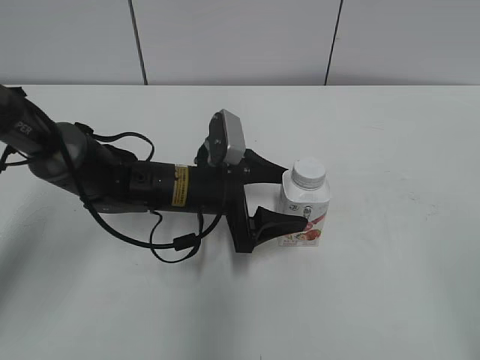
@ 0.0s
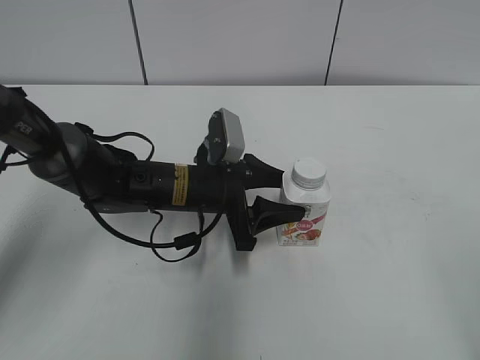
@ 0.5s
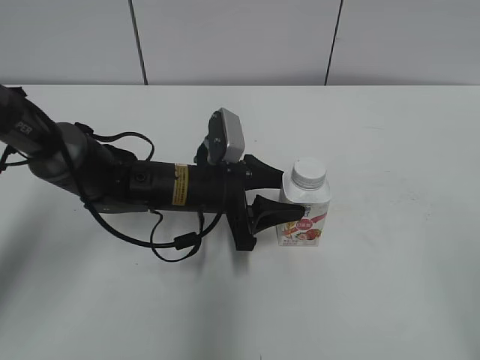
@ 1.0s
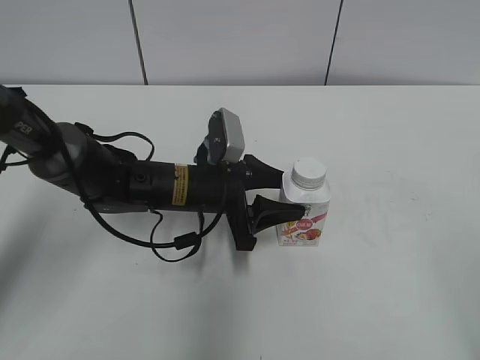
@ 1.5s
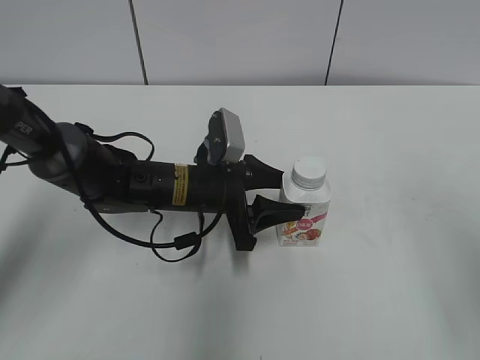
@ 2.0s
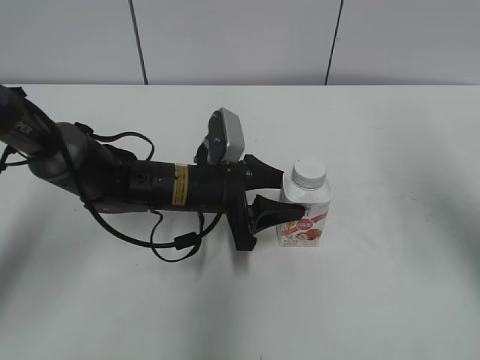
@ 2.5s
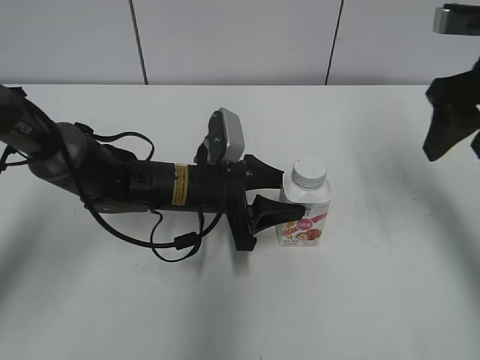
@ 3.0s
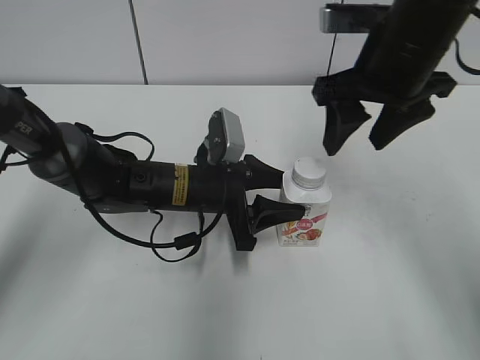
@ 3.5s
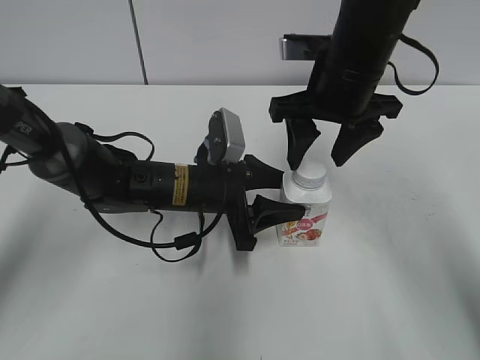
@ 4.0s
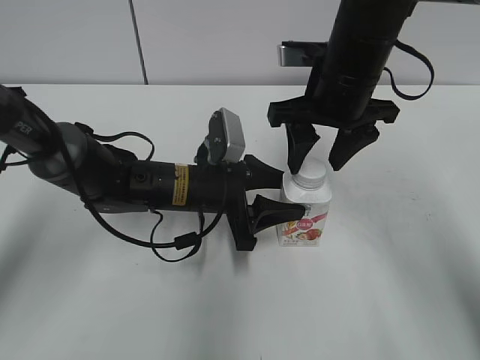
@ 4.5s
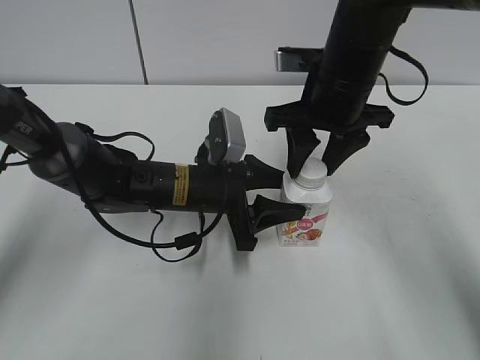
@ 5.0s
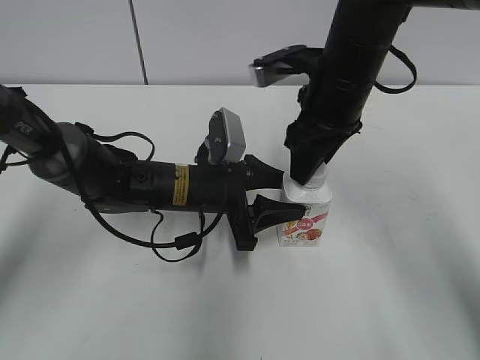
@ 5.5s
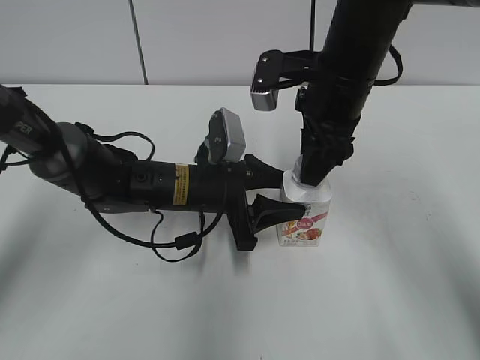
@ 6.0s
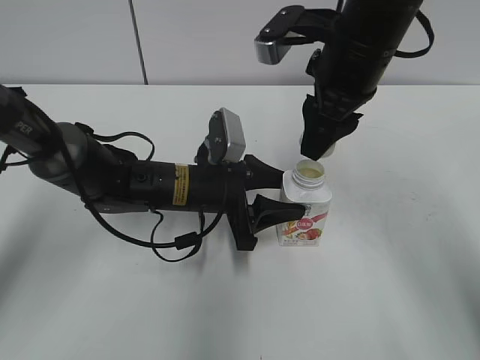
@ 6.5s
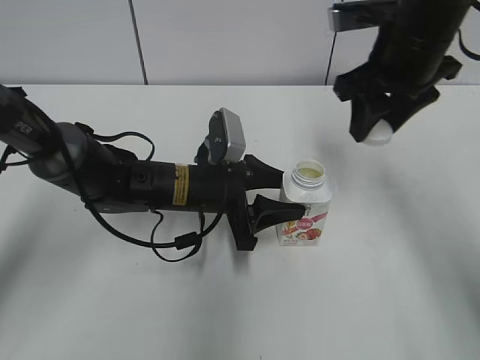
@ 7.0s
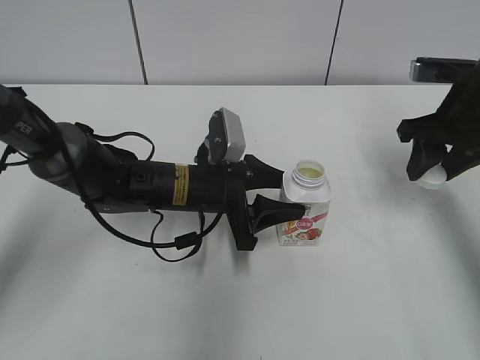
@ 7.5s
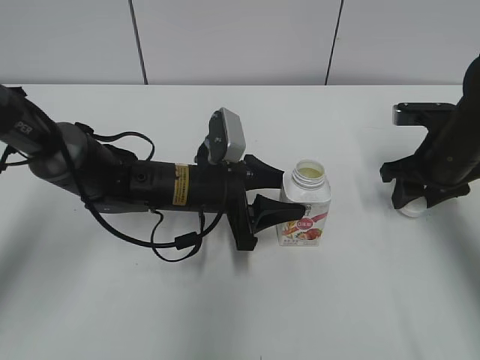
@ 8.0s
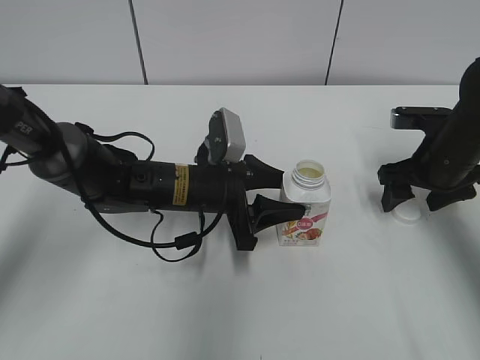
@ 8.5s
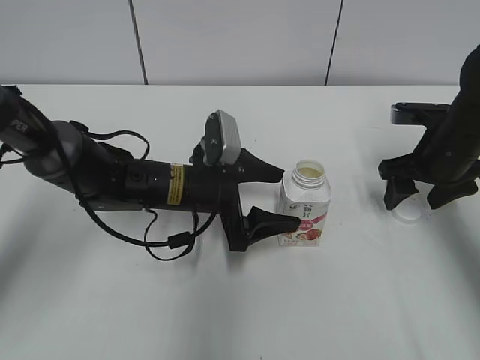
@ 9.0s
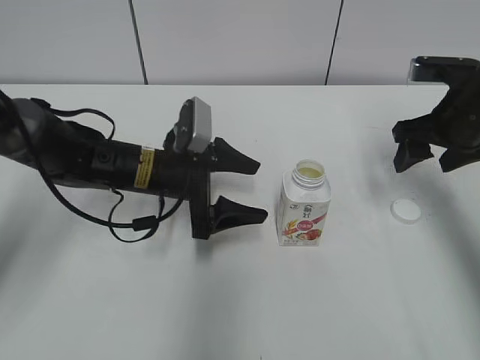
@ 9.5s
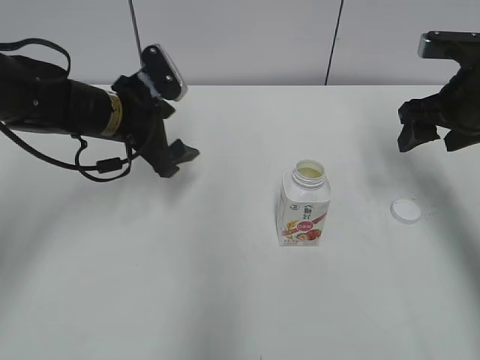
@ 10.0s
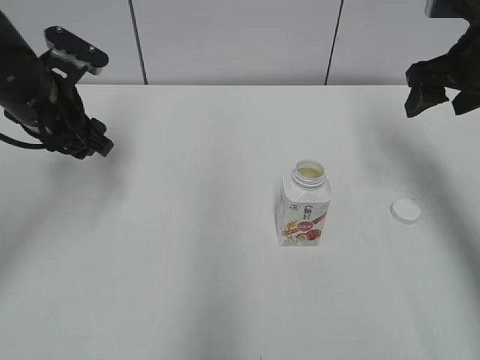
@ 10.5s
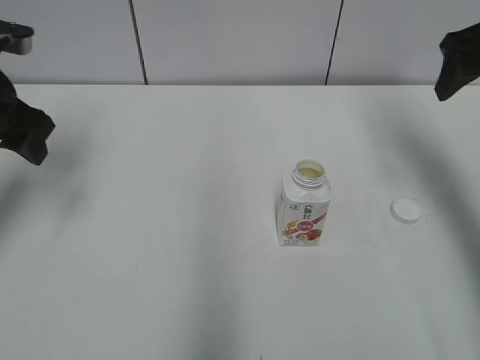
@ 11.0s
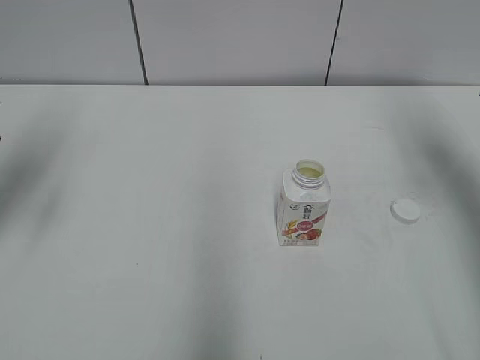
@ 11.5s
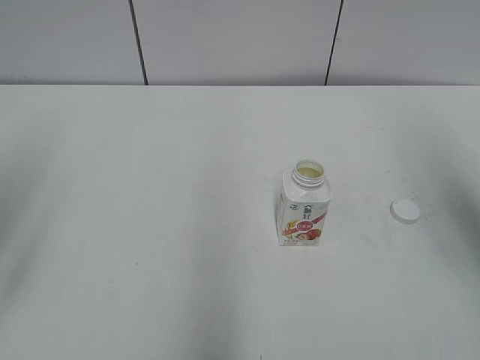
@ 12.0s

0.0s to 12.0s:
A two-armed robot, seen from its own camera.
Step, 6.5s to 8.5s: Place the bottle cap on the right.
0.0s to 2.0s: The left gripper closes up. The right gripper moves forward, some 10 cm.
2.0s to 4.0s: The right gripper heads forward and to the left, covering roughly 30 cm.
4.0s to 6.0s: The right gripper closes its fingers.
6.0s to 8.0s: The right gripper moves to the right and downward, roughly 20 cm.
8.0s to 10.0s: The left gripper goes some 15 cm to the left, upward and forward, and opens its fingers, while the right gripper goes roughly 10 cm upward, and opens up.
10.0s to 12.0s: The right gripper is displaced upward and backward by approximately 15 cm. Meanwhile the left gripper shifts about 30 cm backward, upward and to the left.

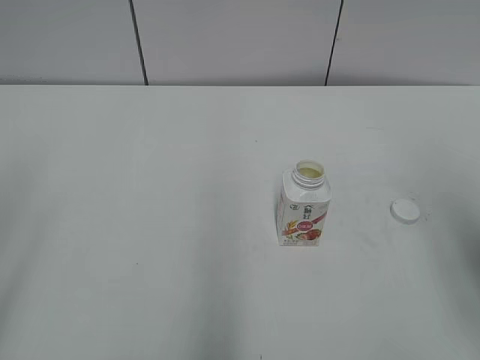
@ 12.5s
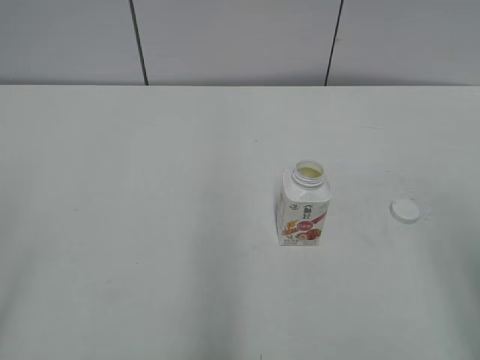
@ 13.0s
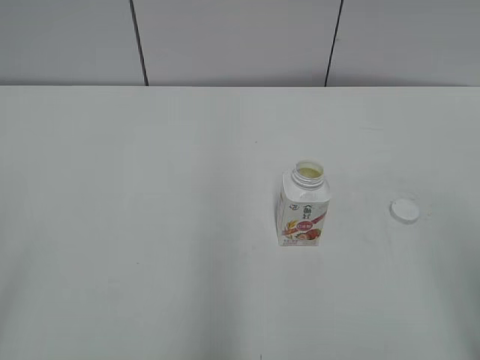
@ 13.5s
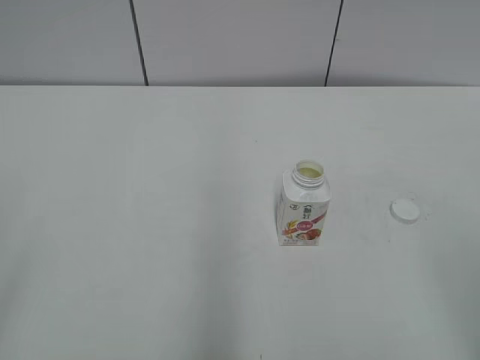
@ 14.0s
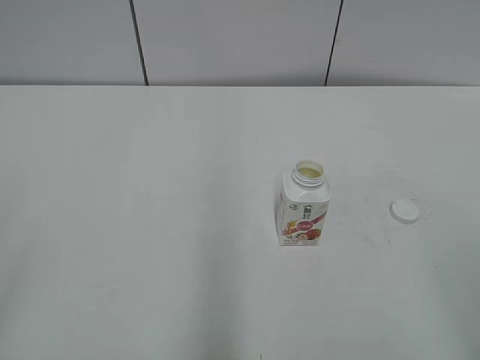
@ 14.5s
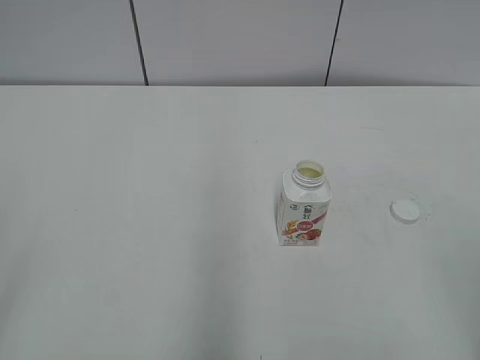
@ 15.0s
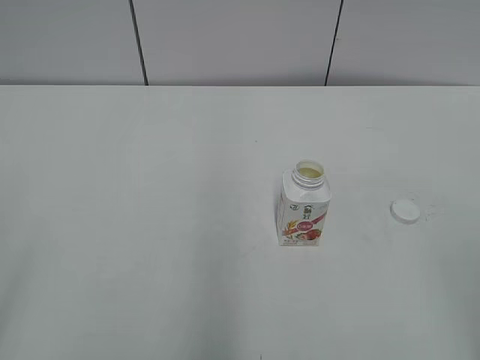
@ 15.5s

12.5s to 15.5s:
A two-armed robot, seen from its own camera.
12.5s to 14.0s: The right gripper is displaced backward by roughly 15 cm.

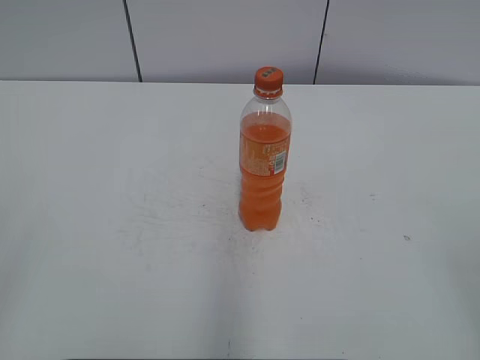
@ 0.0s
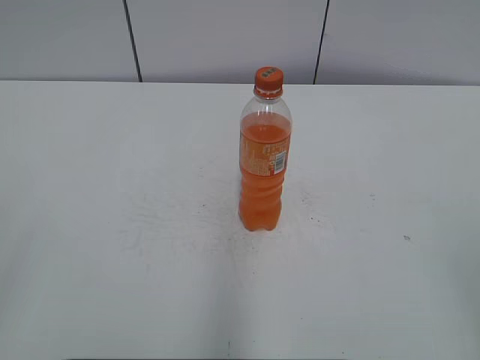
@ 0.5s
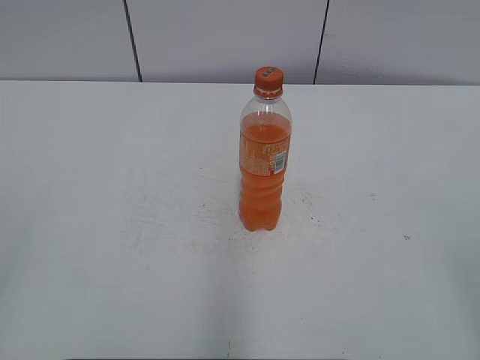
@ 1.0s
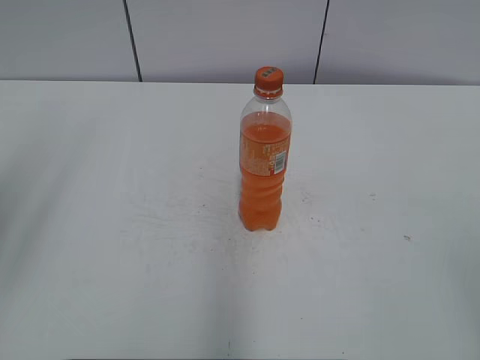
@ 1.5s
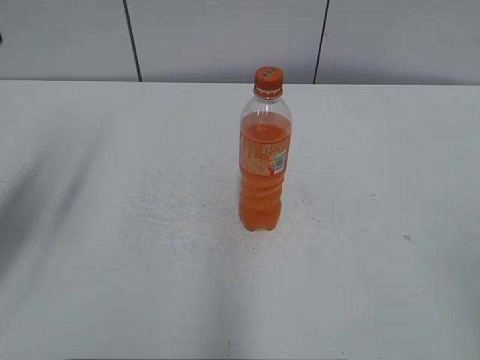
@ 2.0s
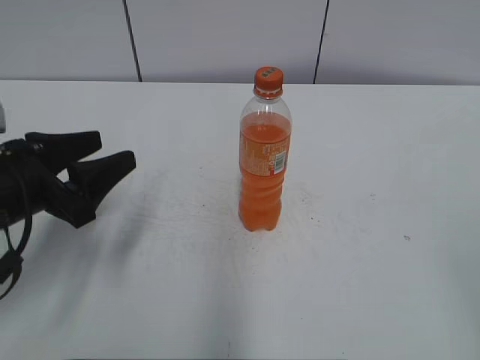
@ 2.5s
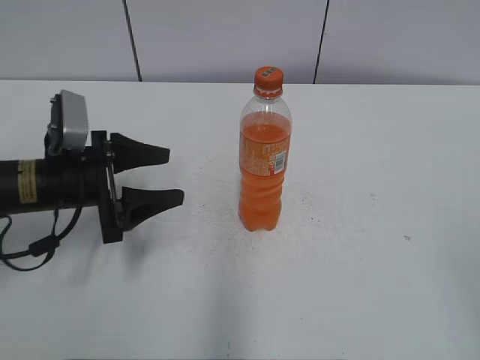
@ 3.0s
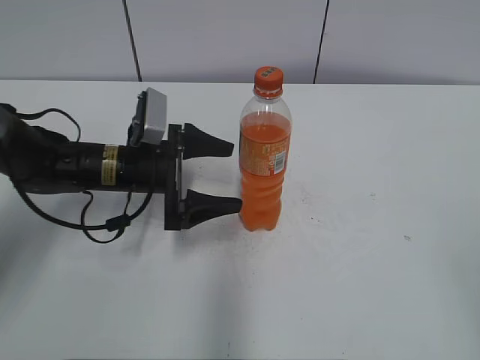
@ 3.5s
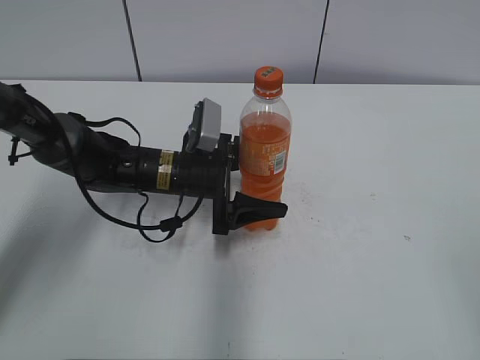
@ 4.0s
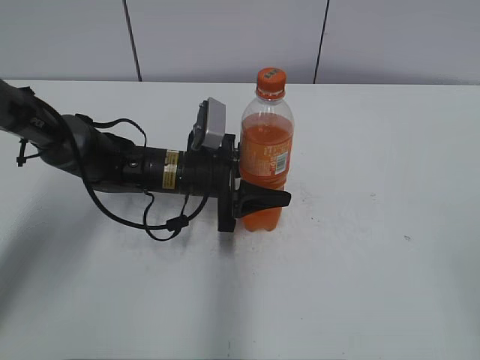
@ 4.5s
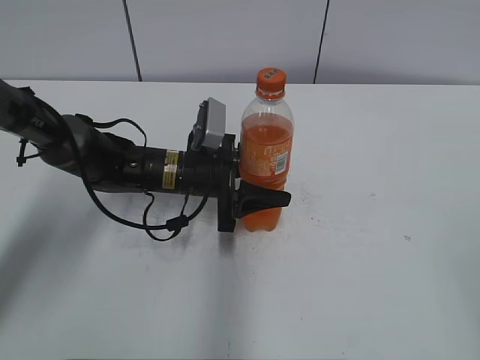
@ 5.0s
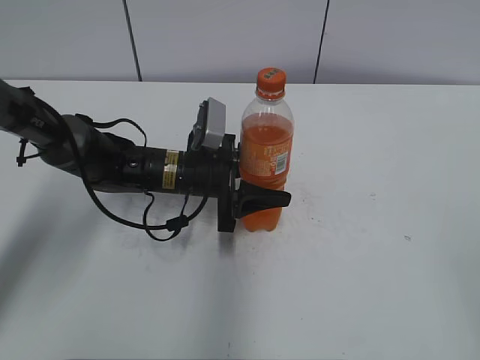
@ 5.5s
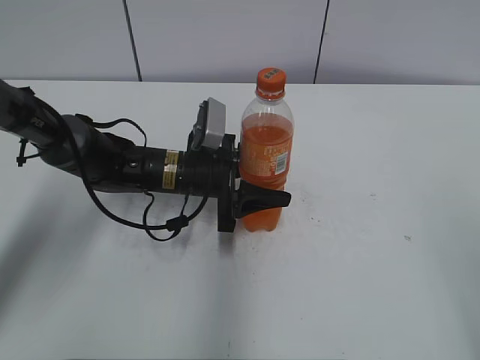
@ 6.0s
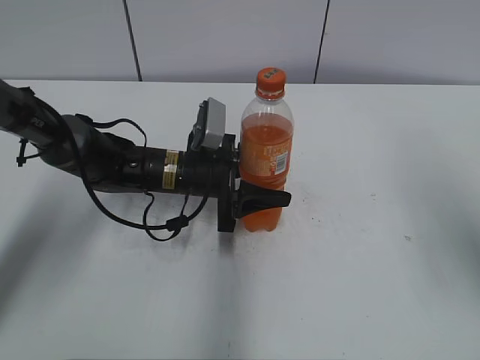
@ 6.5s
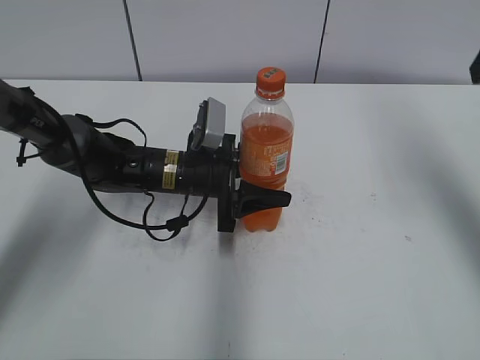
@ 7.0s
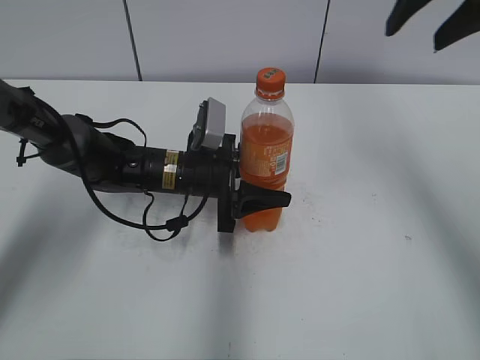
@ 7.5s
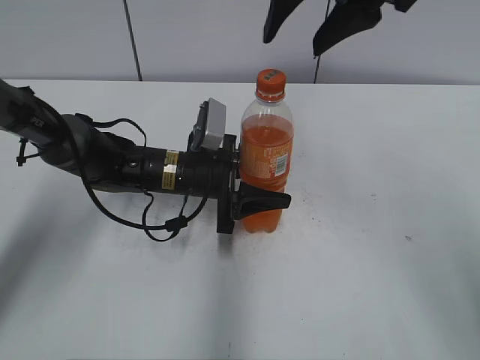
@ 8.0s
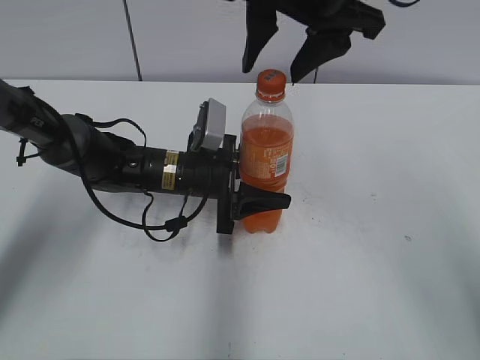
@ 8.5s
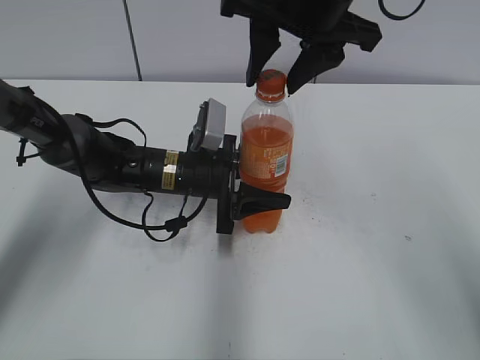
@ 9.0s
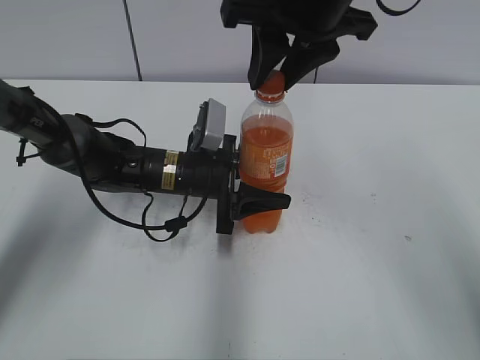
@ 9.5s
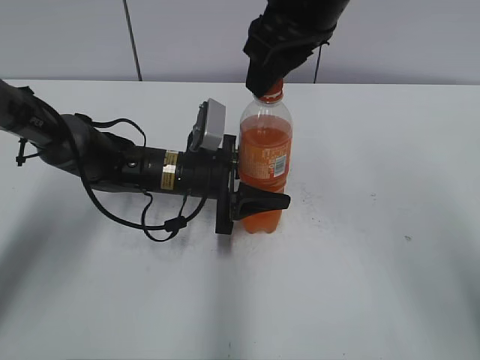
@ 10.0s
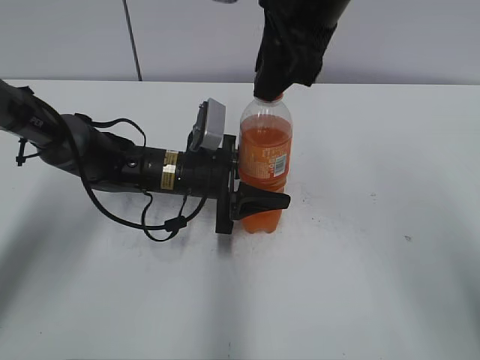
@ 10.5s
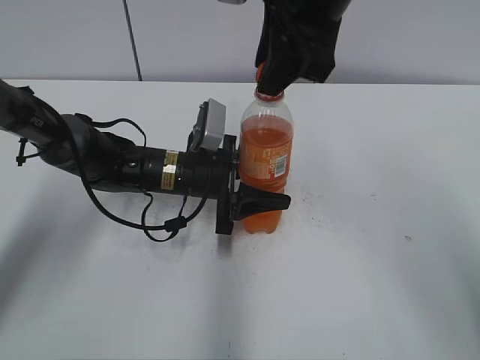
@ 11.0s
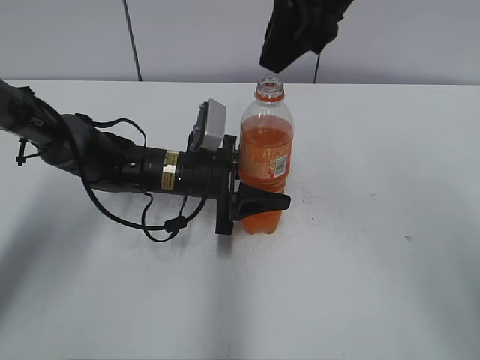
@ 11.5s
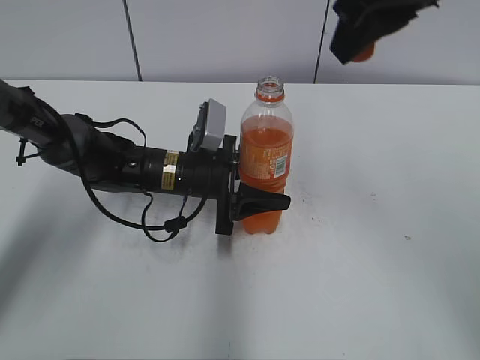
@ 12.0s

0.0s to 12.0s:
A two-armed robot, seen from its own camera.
Step, 0.0s to 4.5s: Grab the Mirinda with the left hand.
2.0s to 4.0s: The left gripper heads to the right, downward and forward, covering about 30 cm, and opens its fingers.
4.0s to 6.0s: The left gripper closes.
6.0s to 8.0s: The right gripper shifts some 35 cm forward and to the left.
8.0s to 10.0s: The right gripper closes up.
10.0s to 12.0s: The right gripper heads to the right, covering approximately 5 cm.
